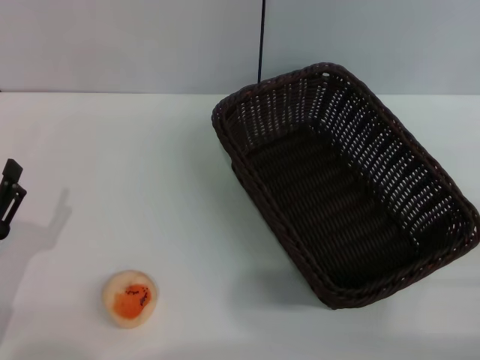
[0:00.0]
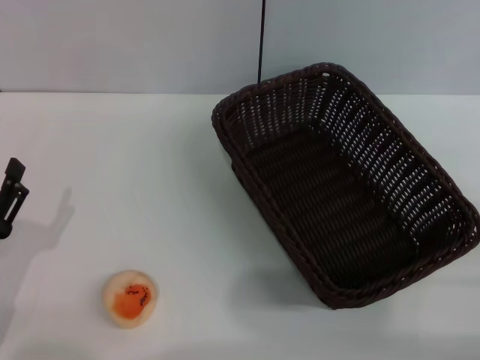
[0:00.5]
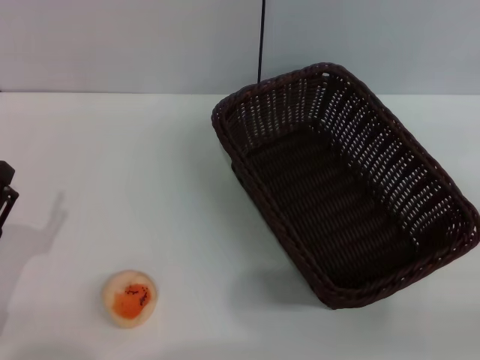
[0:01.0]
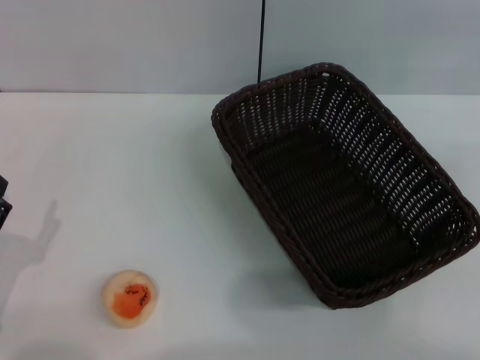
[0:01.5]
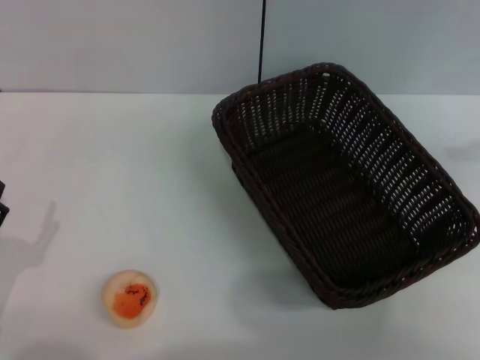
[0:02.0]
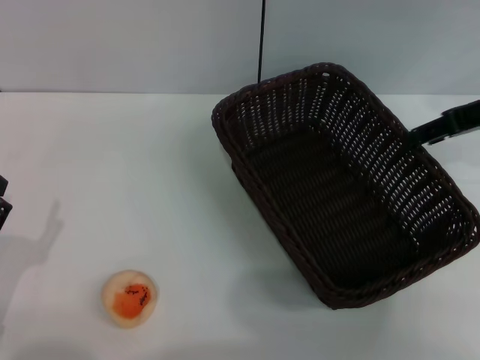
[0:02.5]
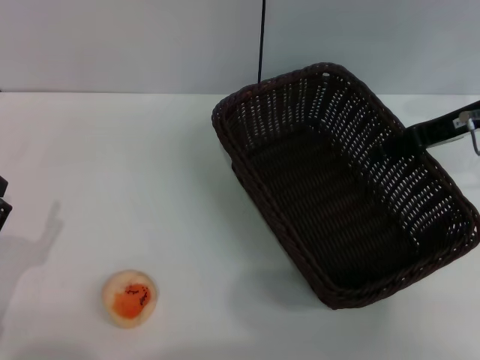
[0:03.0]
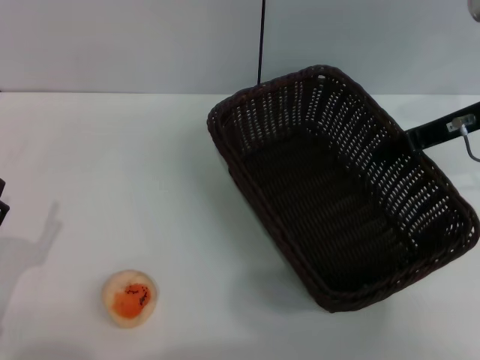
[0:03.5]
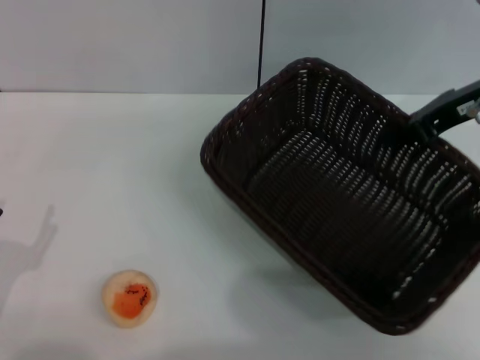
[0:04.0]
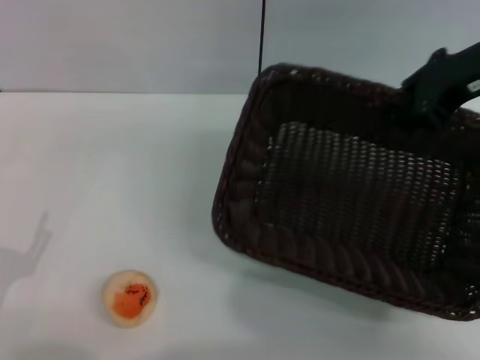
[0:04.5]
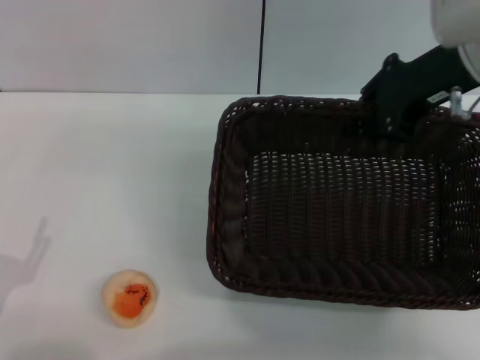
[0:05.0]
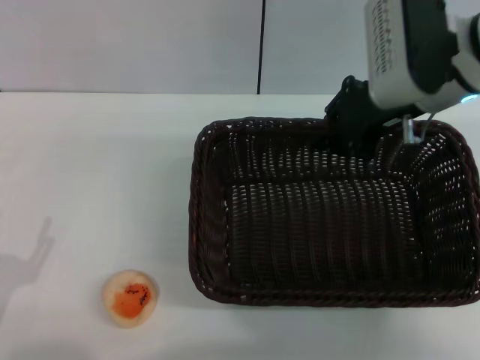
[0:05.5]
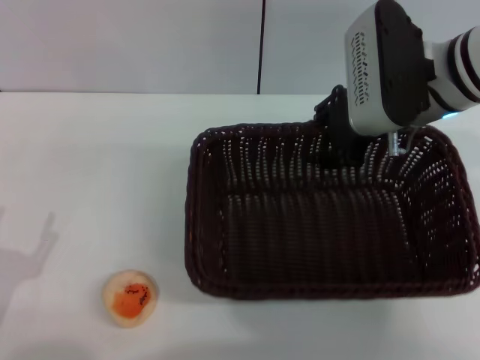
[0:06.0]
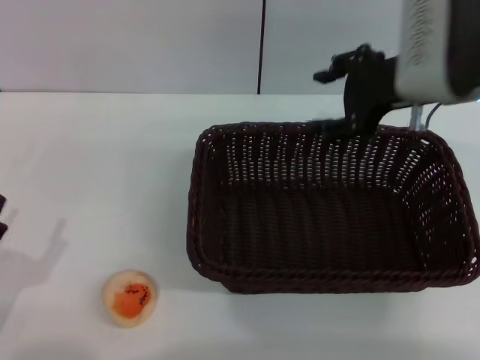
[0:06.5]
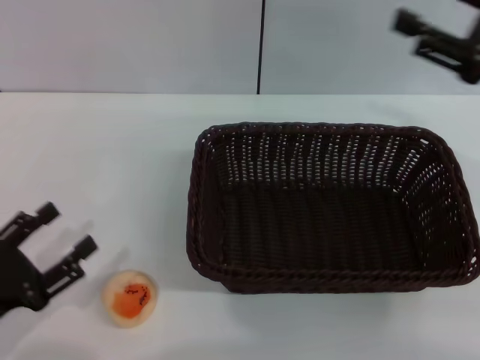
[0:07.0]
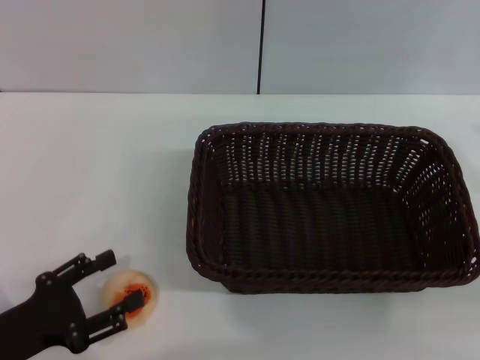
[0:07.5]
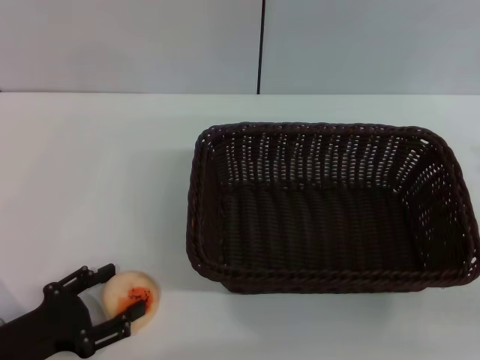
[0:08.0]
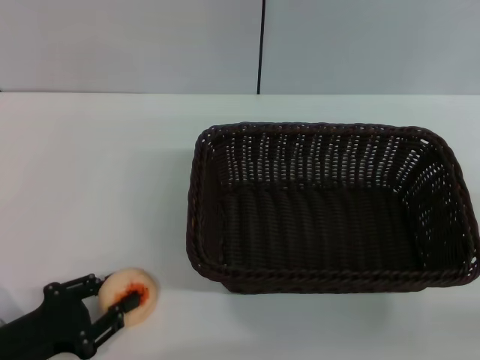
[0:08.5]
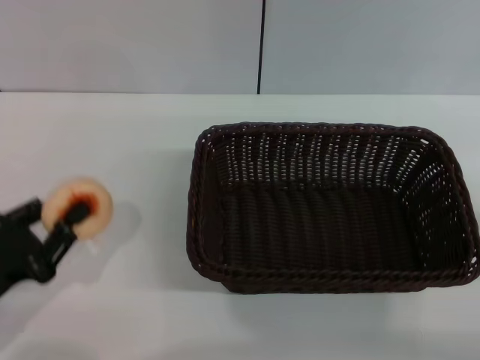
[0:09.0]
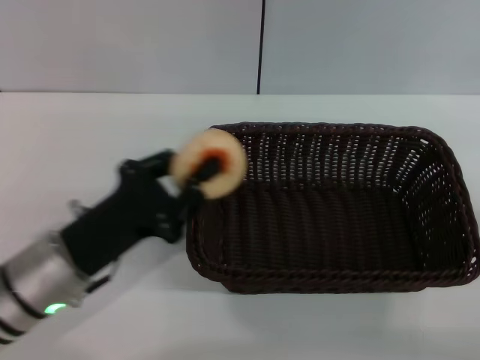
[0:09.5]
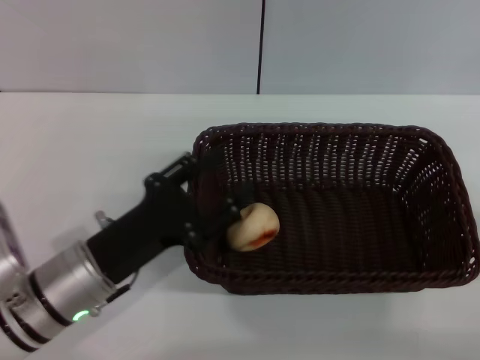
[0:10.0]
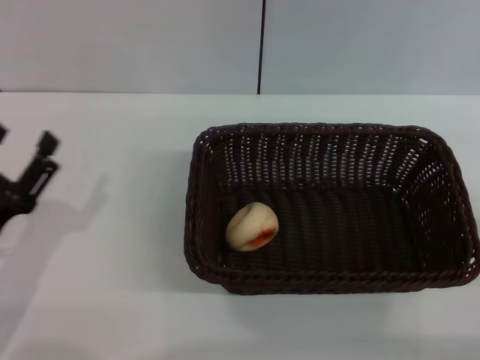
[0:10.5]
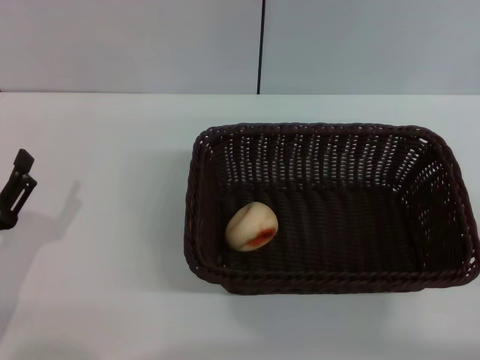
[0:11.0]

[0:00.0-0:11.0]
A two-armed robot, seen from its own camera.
Step, 0:00.0 to 0:06.0: Move the basket to the center of view with the right gripper.
Step, 0:06.5 to 0:09.0: Pick up the egg yolk pastry with the left gripper.
Step, 0:09.5 to 0:10.0: Place the egg yolk pastry into the basket with the left gripper.
0:00.0 to 0:02.0: The right gripper goes approximately 30 cm upward and forward.
0:02.0 to 0:03.5: The right gripper travels to the left and downward by roughly 15 cm, and closes its fingers.
0:03.5 to 0:05.5: The right gripper heads to the left, covering roughly 10 cm, and closes its fingers.
0:05.5 to 0:07.5: The right gripper heads to the right and backward, covering some 25 cm, and opens its fingers.
0:07.5 to 0:09.0: The left gripper closes up.
0:09.0 to 0:11.0: The left gripper goes to the right and returns, roughly 10 cm each way, and opens.
